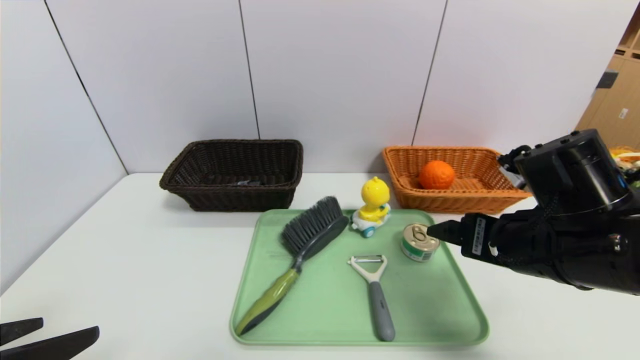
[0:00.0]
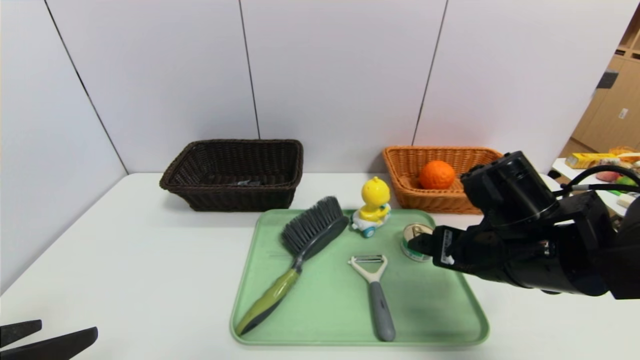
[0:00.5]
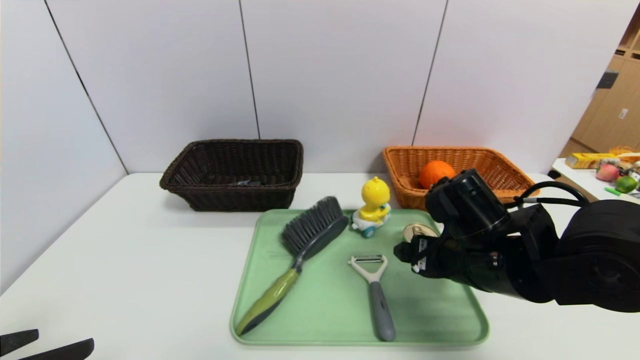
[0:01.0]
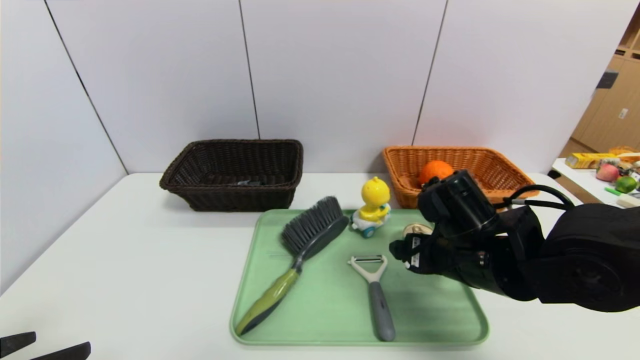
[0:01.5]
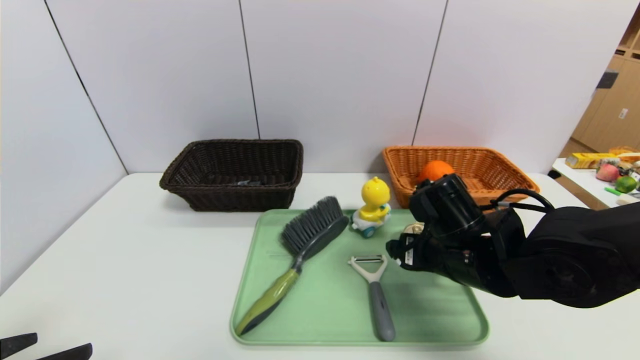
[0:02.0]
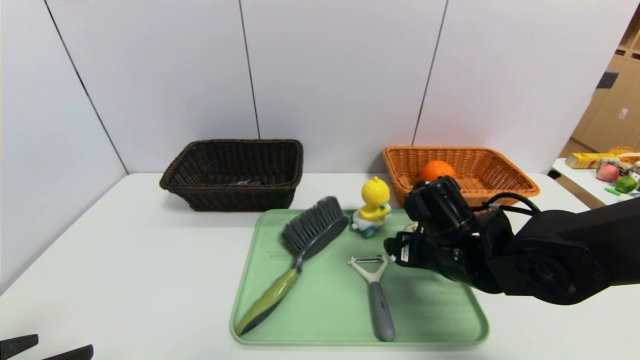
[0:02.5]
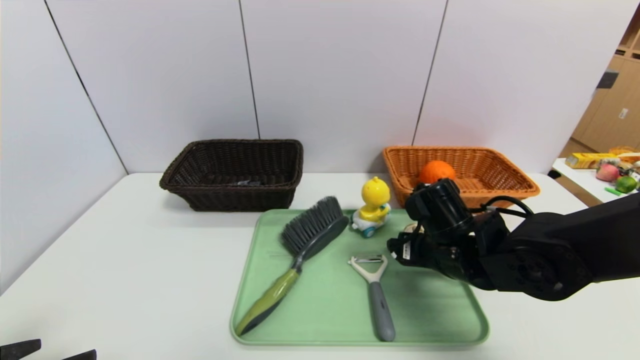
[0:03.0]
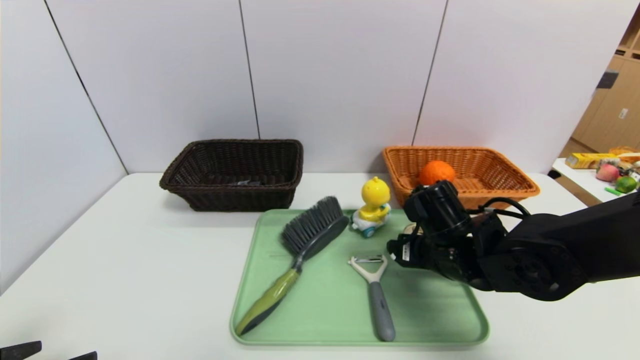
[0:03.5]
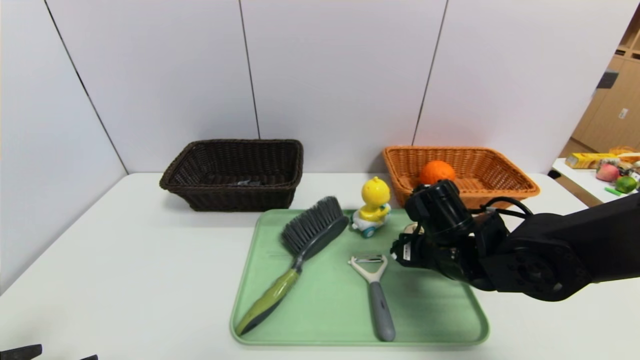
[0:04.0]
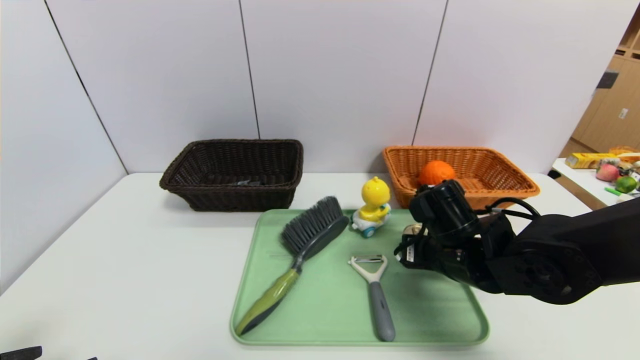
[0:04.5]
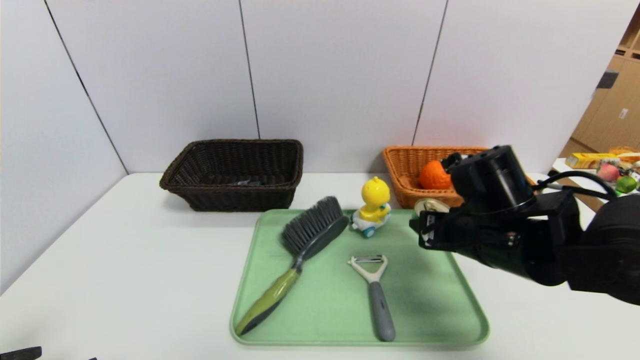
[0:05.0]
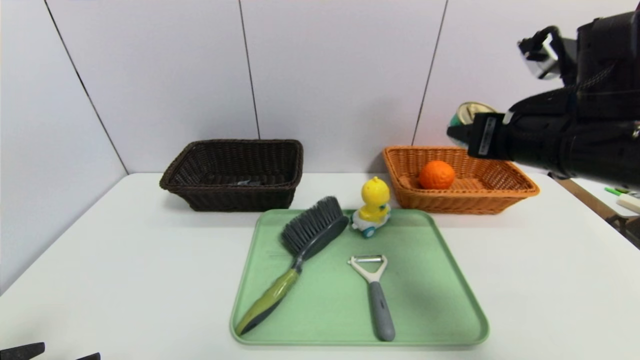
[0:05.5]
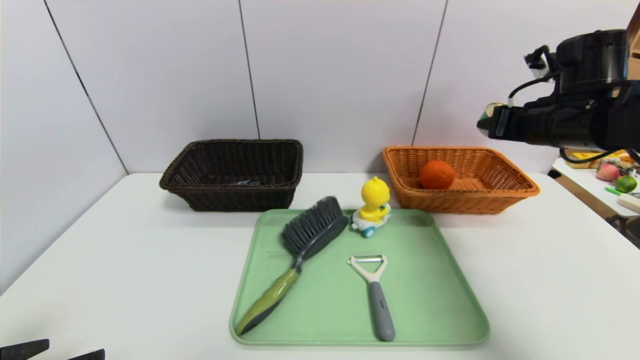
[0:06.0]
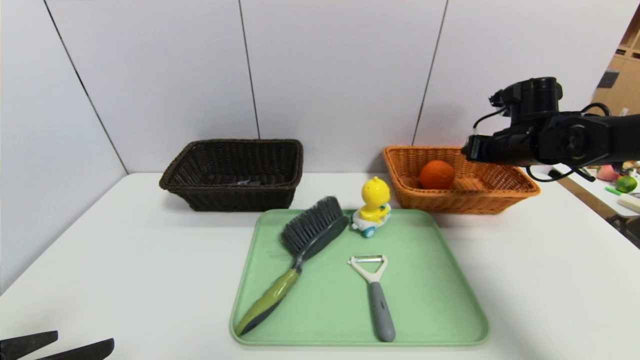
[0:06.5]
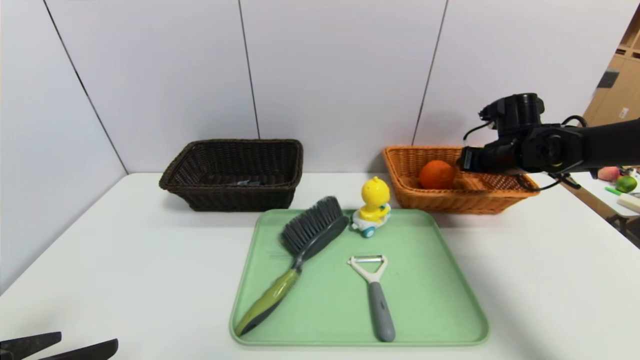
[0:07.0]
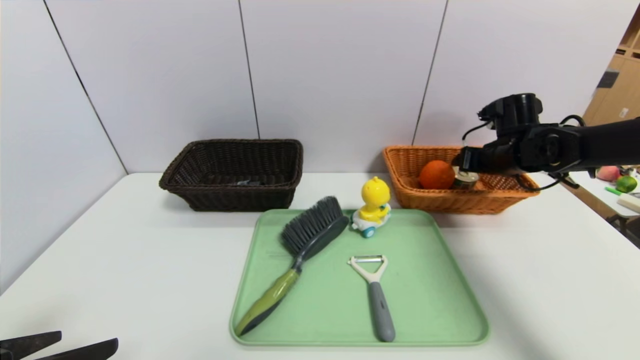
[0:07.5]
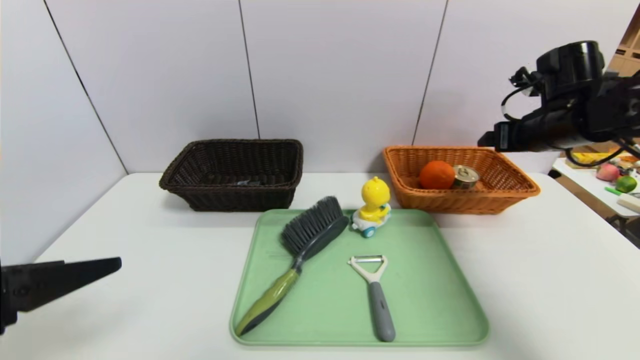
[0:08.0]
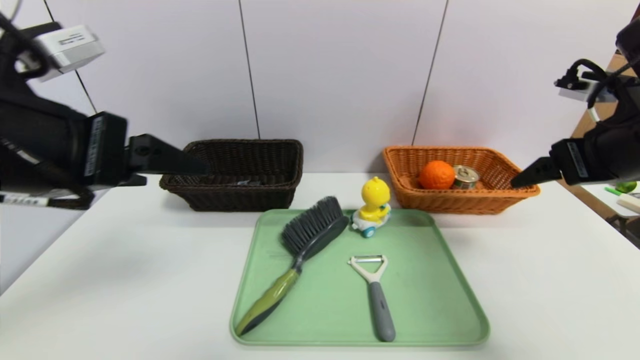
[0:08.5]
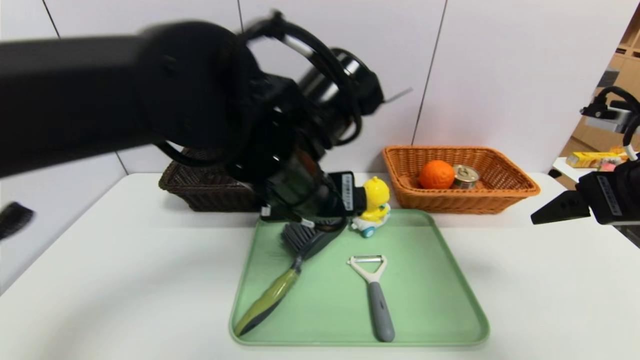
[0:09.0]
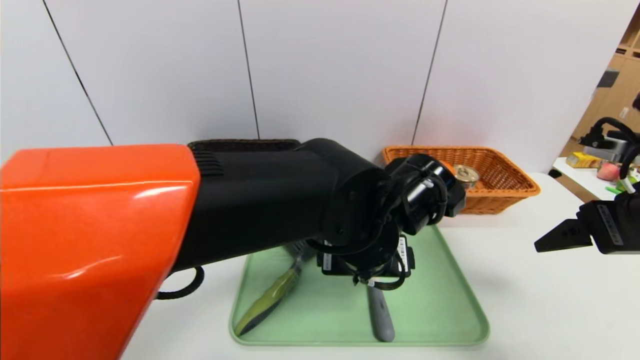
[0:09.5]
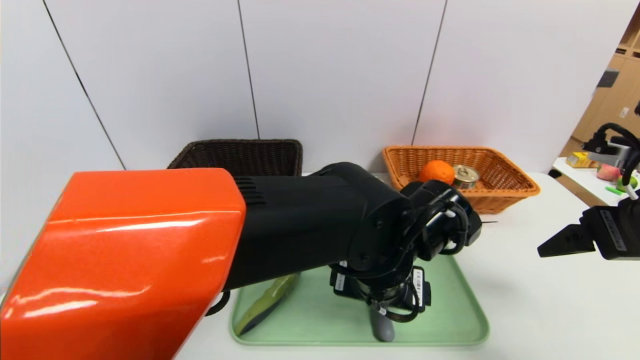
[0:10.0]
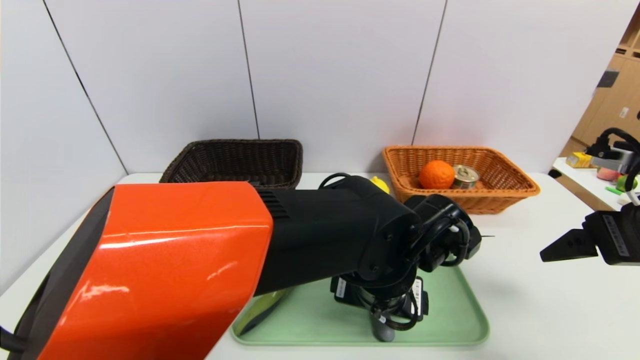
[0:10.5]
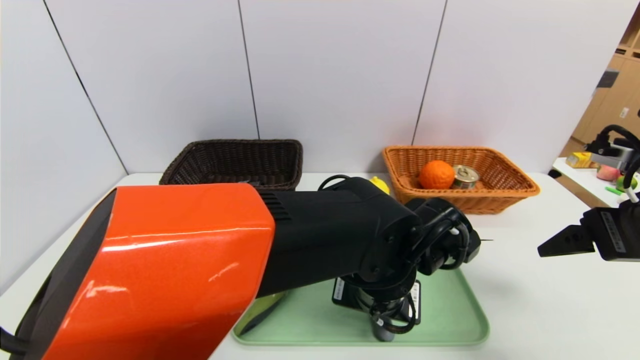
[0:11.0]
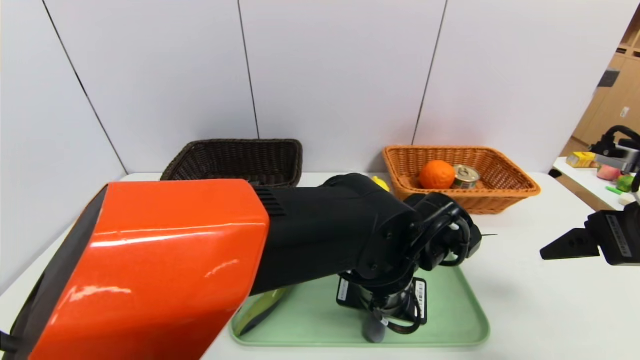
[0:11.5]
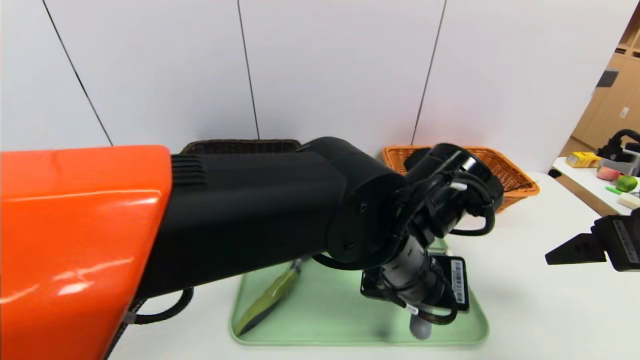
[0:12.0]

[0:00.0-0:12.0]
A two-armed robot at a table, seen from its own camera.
Task of the whole recording: place the food in the right basket with the right gripper, and place the non food items in the left basket with the left gripper.
Step, 0:00.0 to 0:07.5: Grasp the can and put it in the right basket.
0:00.0 to 0:02.0: The right gripper heads downward and to the left, covering some 10 cm.
0:02.0 to 0:04.0: The grippers move only a little.
0:04.0 to 0:06.0: The right gripper travels upward, to the right and forward by about 20 cm.
0:06.0 to 0:08.0: The left gripper heads upward, covering some 5 cm; the right gripper reaches roughly 10 cm downward, then returns, and opens.
0:08.0 to 0:10.0: The right gripper travels backward by some 15 cm; the left gripper moves to the right, some 35 cm.
0:10.0 to 0:12.0: The left gripper closes its fingers.

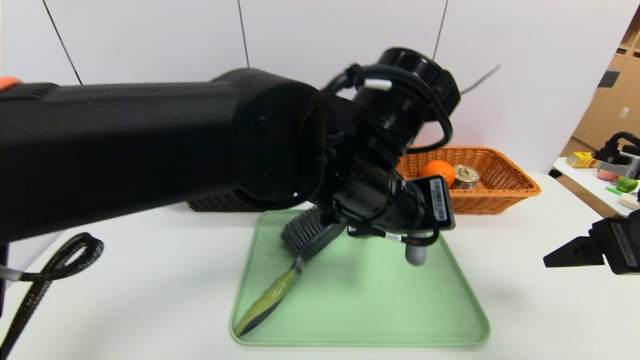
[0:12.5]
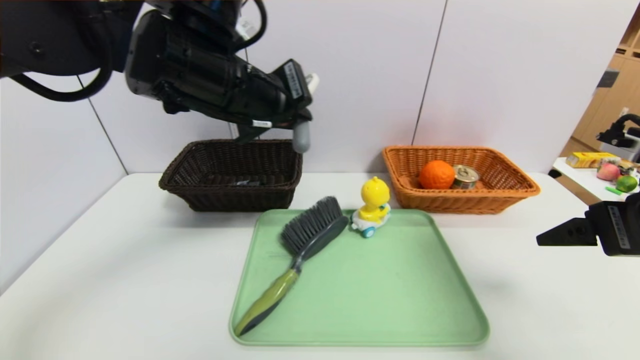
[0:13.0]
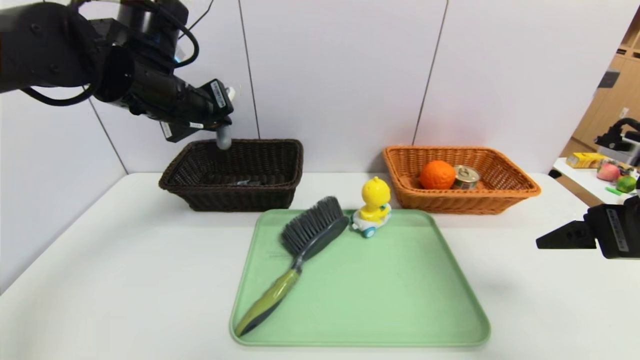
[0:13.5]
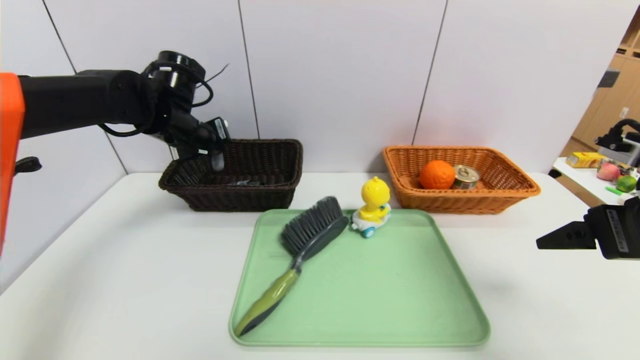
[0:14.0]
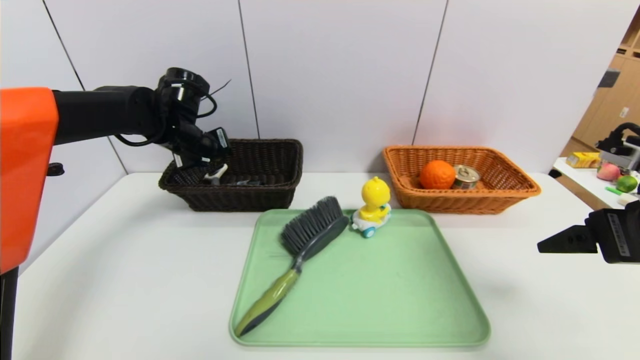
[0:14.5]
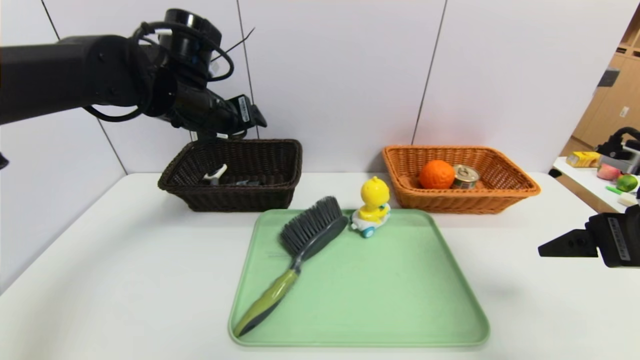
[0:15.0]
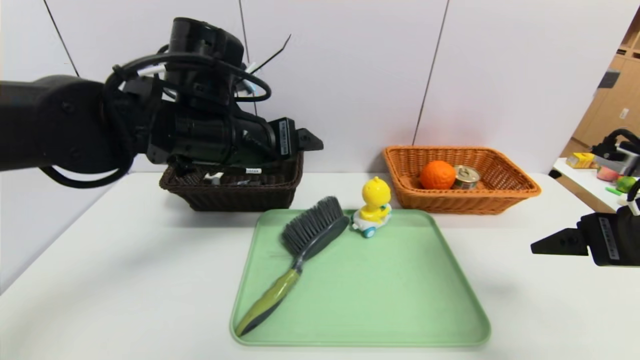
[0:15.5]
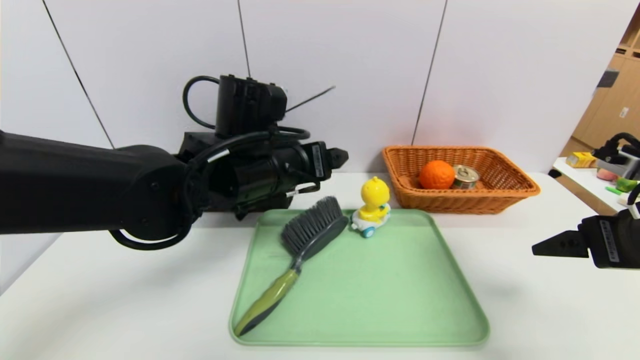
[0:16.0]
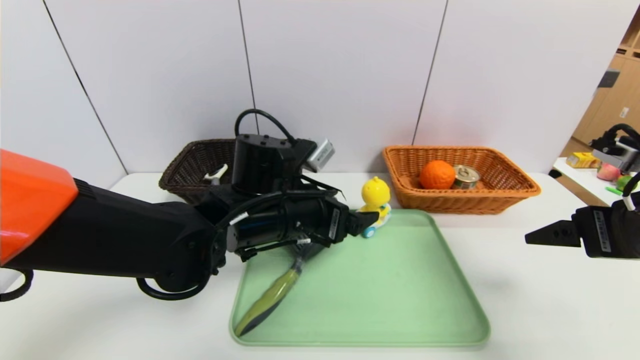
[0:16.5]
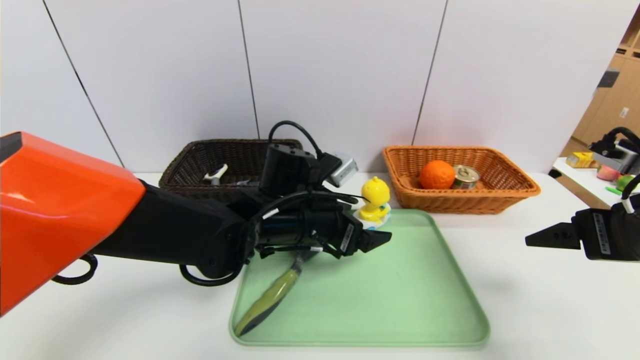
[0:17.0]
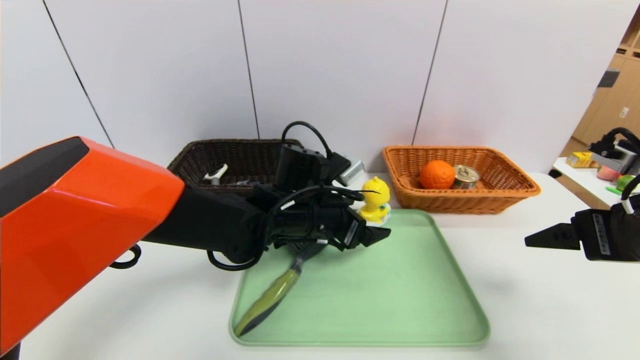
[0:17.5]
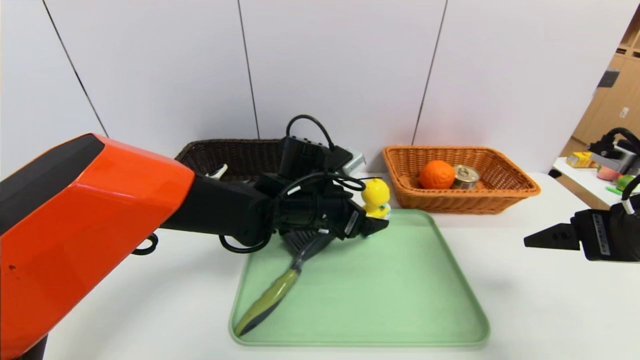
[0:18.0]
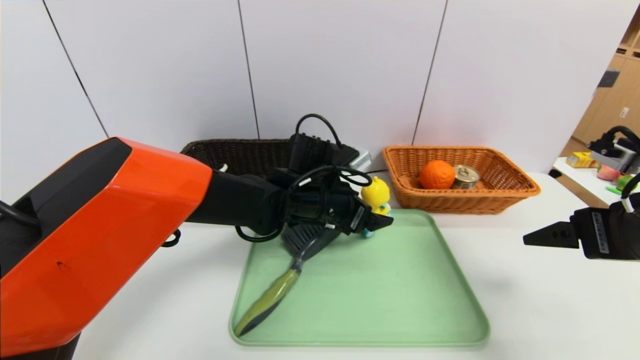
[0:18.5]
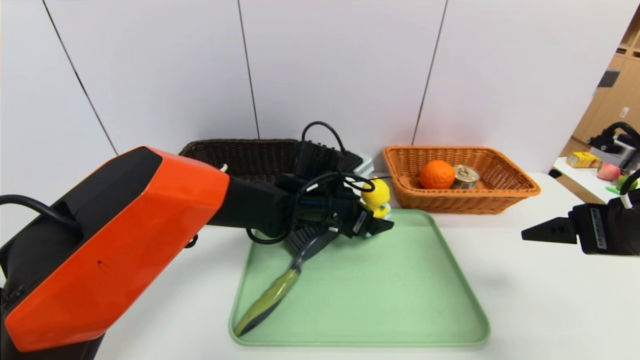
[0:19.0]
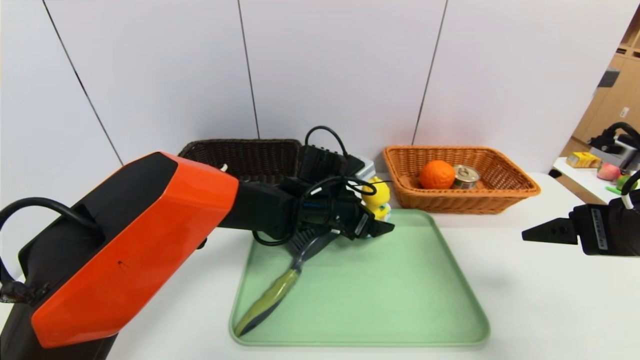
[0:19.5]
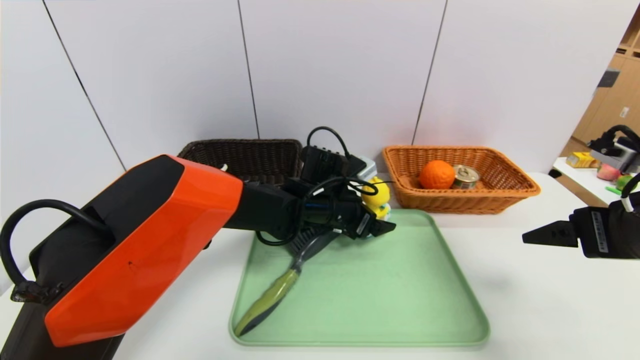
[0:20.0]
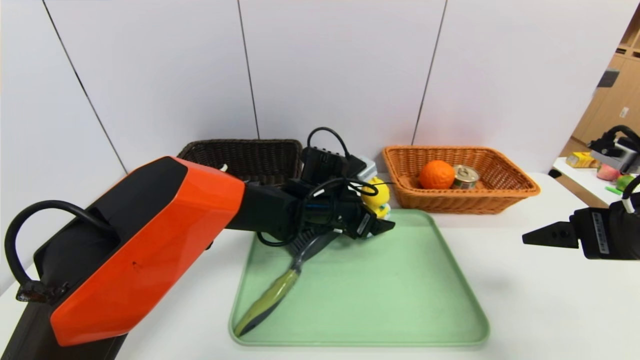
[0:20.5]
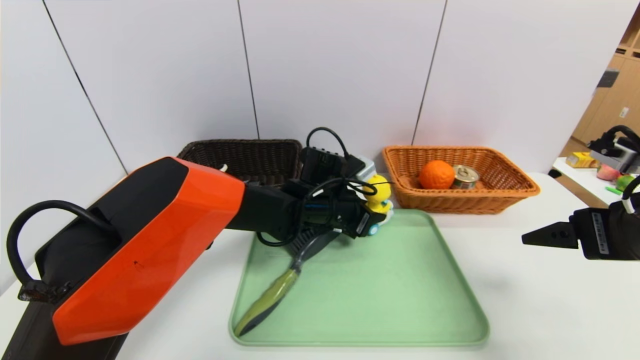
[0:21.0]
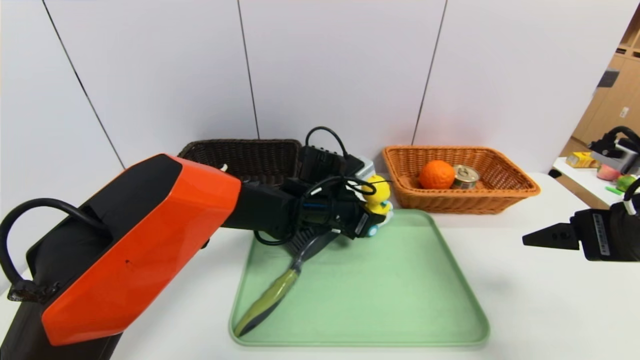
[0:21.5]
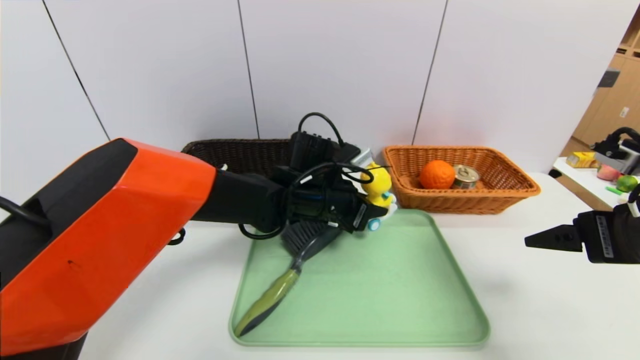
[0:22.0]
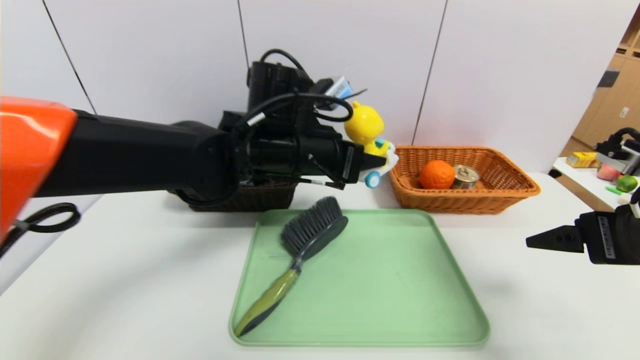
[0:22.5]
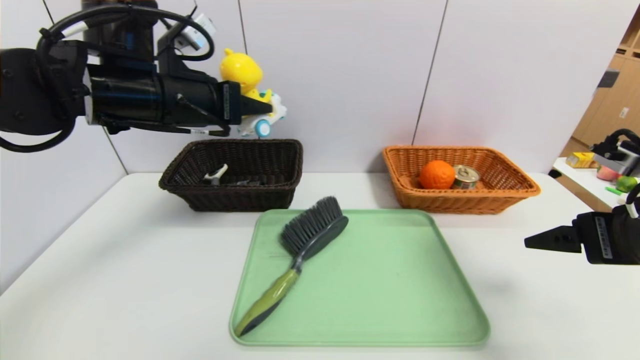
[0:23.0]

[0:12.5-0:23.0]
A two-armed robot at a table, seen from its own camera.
Task of the whole recording: place the food in the right basket with the right gripper, and place the non food items in the left basket with the left gripper.
Step, 0:12.5 to 0:15.0: Grasp the peeler and put it in the left basket.
0:12.5 to 0:14.5: The left gripper heads to the left and forward, covering about 35 cm, and opens its fingers.
0:14.5 to 0:16.5: The left gripper moves to the right and backward, about 25 cm, and opens.
0:16.5 to 0:19.0: The left gripper goes about 10 cm forward and to the right.
0:19.0 to 0:21.0: The left gripper closes up.
0:21.0 to 0:23.0: The left gripper travels upward and to the left by some 30 cm.
